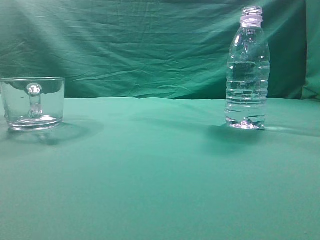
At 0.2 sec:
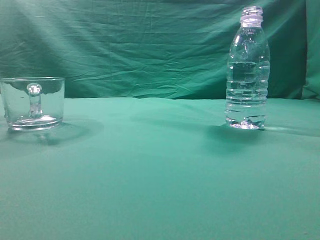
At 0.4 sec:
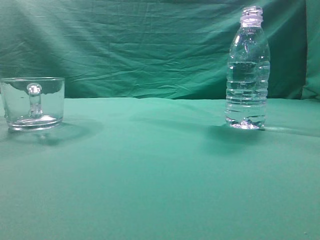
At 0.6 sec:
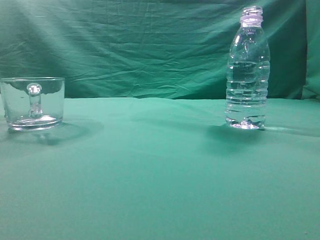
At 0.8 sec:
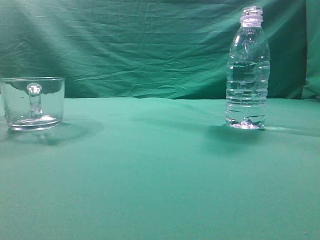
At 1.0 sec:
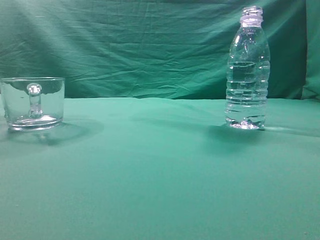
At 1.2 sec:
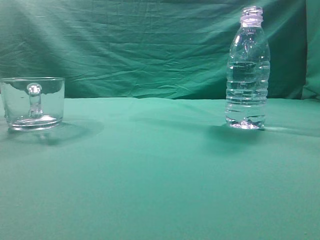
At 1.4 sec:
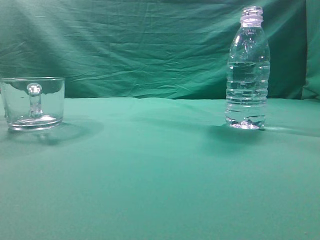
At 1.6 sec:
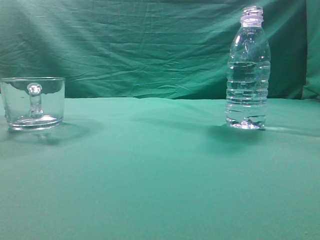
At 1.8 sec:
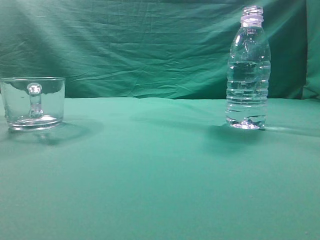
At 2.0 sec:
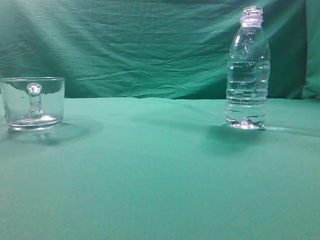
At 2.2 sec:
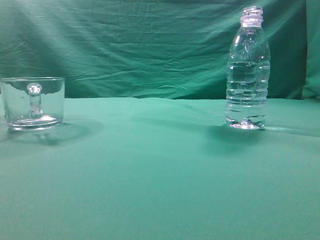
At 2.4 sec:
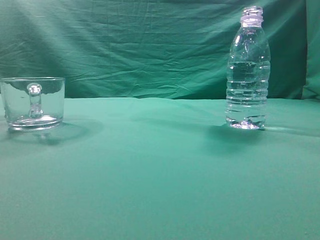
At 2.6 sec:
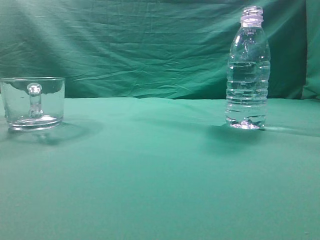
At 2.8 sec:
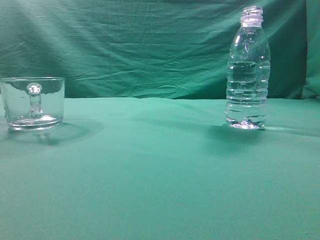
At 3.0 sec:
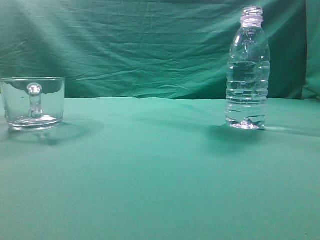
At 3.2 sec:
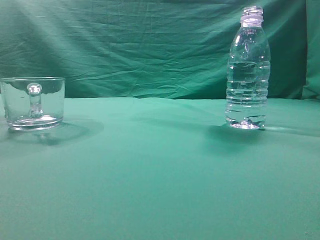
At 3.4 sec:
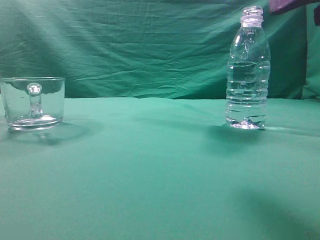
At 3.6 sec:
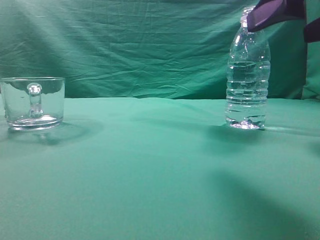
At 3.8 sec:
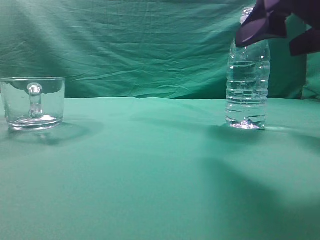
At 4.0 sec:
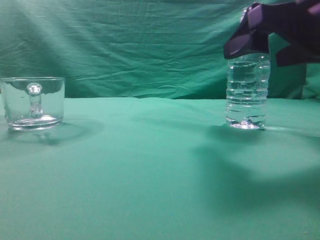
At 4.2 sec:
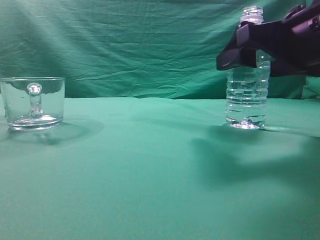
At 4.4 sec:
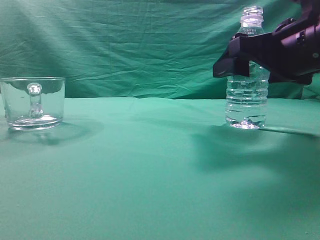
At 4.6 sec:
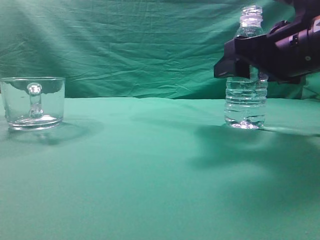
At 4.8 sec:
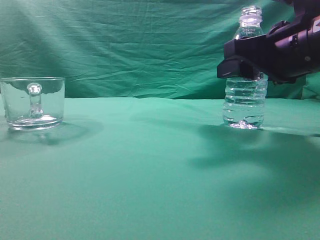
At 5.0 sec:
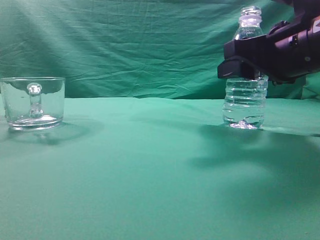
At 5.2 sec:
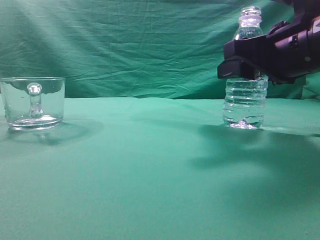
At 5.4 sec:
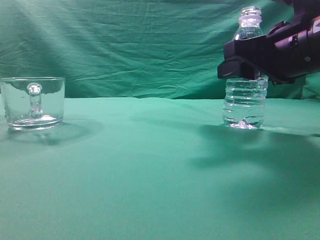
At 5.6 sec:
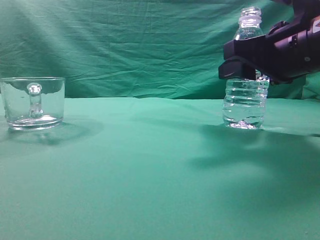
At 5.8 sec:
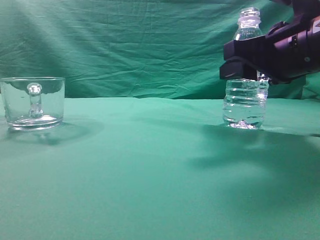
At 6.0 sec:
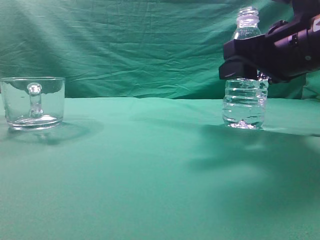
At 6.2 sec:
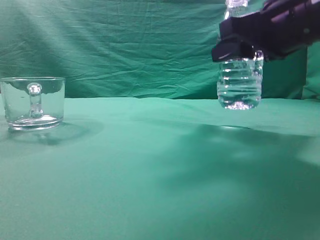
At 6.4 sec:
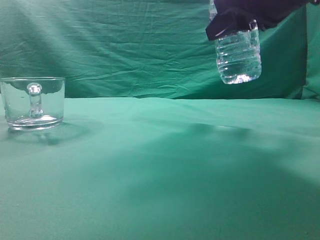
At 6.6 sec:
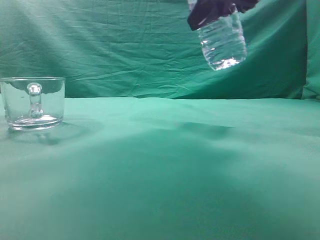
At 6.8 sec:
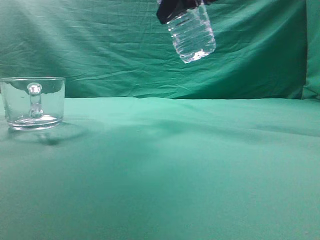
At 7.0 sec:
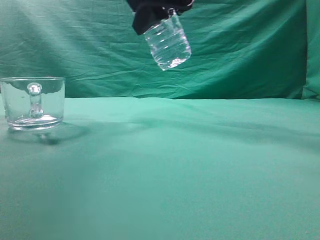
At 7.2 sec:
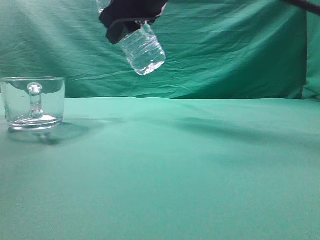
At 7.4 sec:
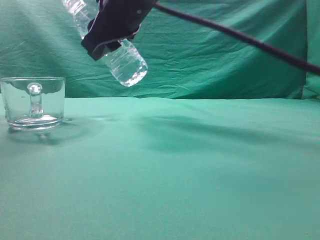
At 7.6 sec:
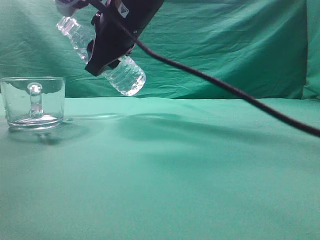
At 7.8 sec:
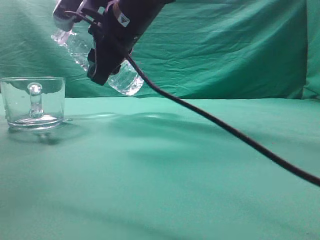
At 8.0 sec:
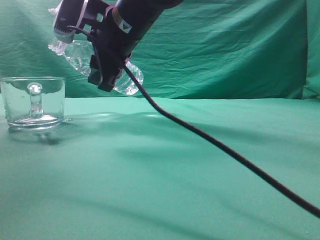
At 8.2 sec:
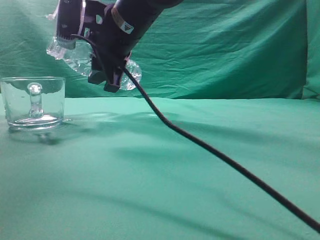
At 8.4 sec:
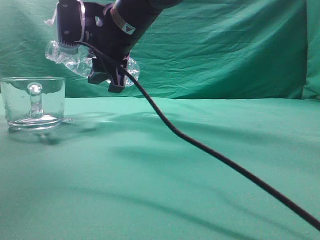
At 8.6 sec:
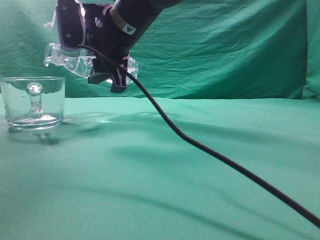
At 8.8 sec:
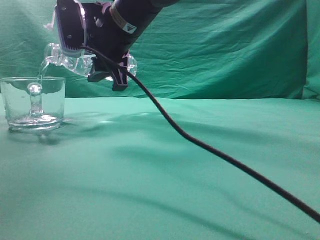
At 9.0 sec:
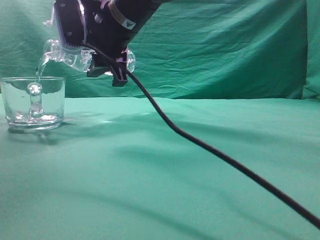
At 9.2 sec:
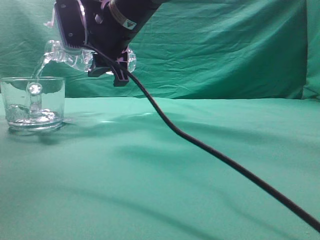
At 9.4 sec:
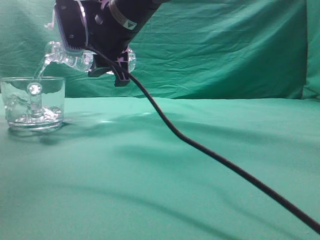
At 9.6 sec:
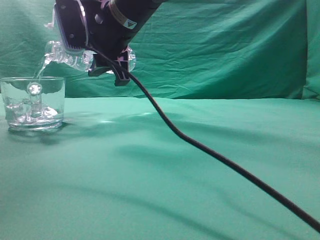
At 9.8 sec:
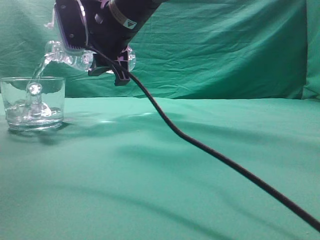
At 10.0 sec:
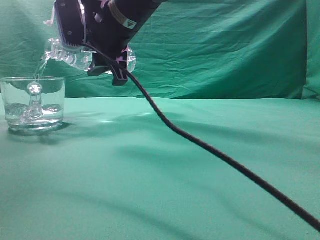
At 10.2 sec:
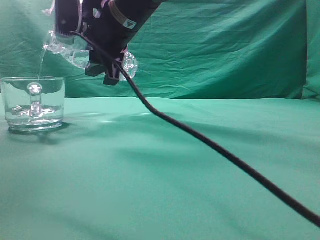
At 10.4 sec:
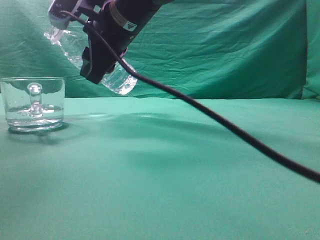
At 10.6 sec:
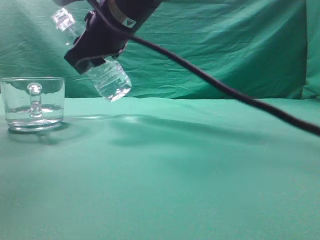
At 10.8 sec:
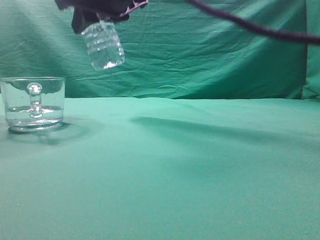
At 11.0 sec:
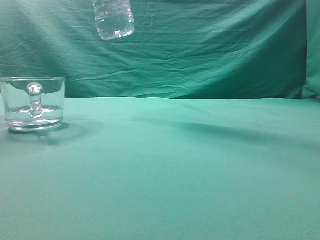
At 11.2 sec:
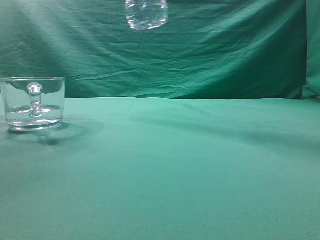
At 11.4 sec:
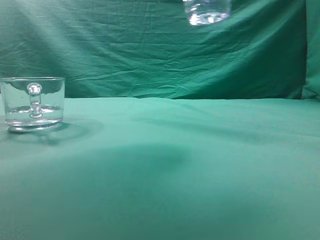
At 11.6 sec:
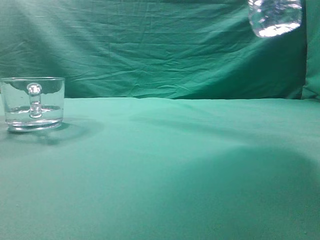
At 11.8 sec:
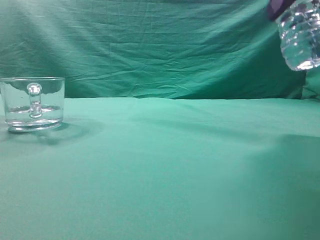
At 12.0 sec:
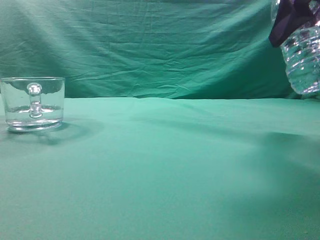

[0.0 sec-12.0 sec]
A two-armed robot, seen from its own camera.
Task of the whole recording: pick up the water bottle and pour the water in it into the glass.
Step, 0.0 sec to 6.2 sec: Grasp the mineral water bottle.
Step, 6.4 sec to 10.6 sec: Pour water into the teacup.
3.0 sec to 4.4 sec: The right gripper shifts approximately 20 cm forward and downward, and opens.
4.4 sec to 6.0 sec: The right gripper closes its fingers.
6.0 sec to 7.6 sec: The right gripper travels to the left and forward by about 25 cm.
10.4 sec to 12.0 sec: The right gripper heads to the right and backward, covering roughly 30 cm.

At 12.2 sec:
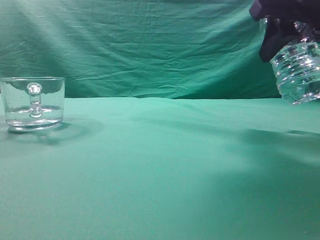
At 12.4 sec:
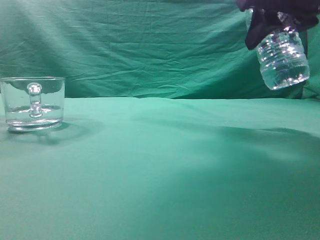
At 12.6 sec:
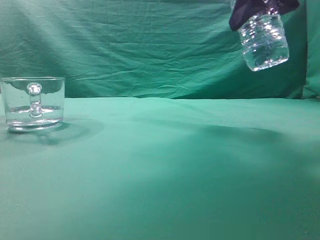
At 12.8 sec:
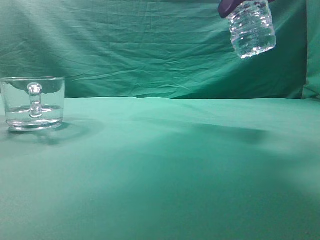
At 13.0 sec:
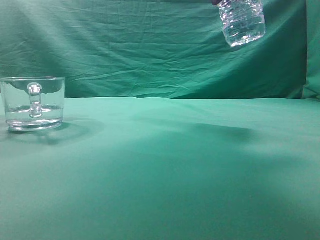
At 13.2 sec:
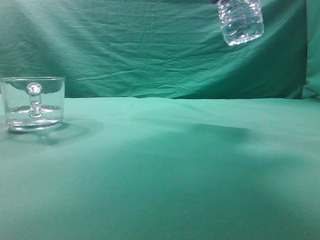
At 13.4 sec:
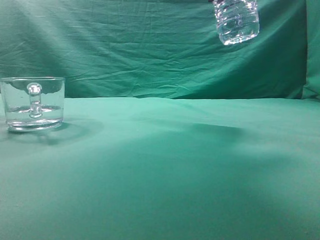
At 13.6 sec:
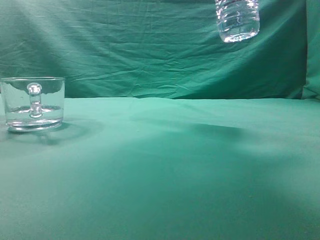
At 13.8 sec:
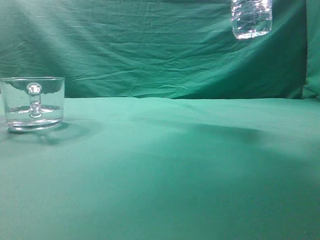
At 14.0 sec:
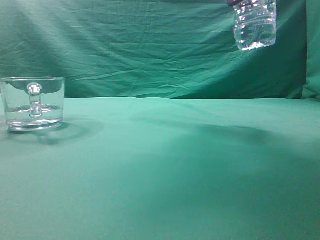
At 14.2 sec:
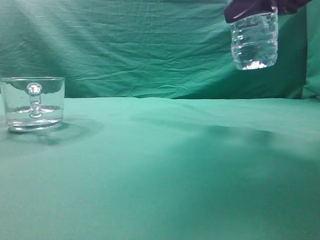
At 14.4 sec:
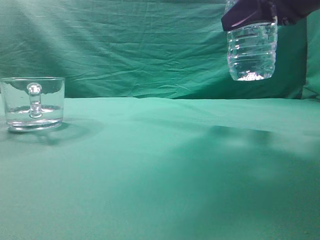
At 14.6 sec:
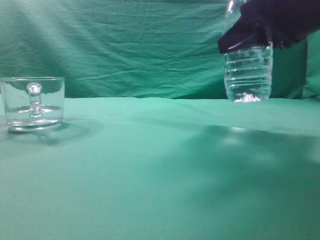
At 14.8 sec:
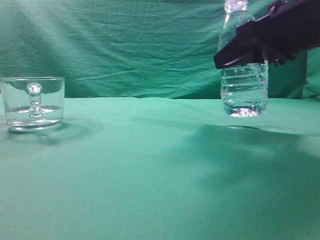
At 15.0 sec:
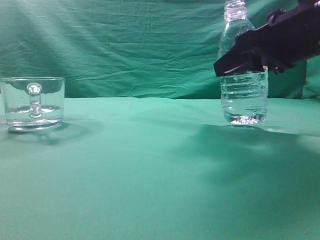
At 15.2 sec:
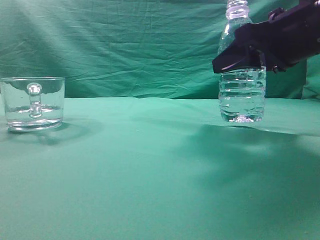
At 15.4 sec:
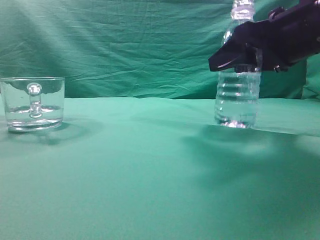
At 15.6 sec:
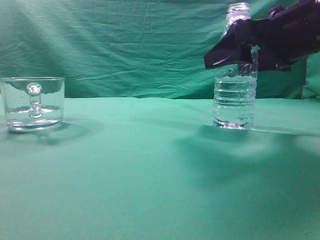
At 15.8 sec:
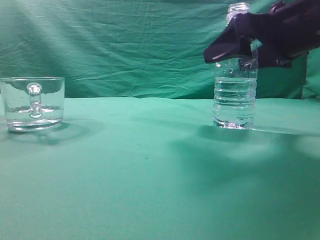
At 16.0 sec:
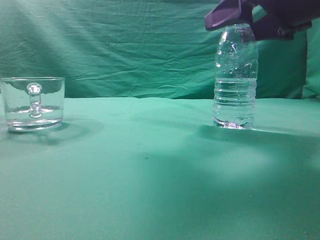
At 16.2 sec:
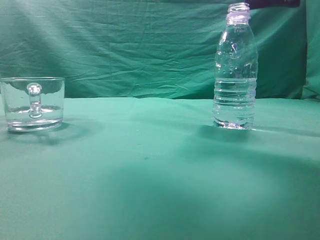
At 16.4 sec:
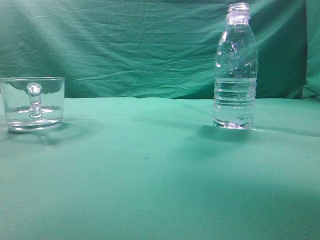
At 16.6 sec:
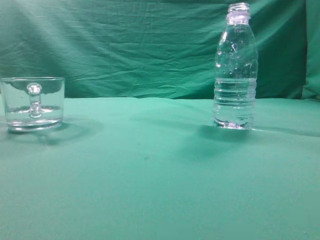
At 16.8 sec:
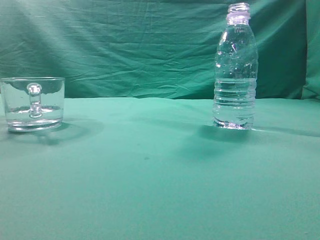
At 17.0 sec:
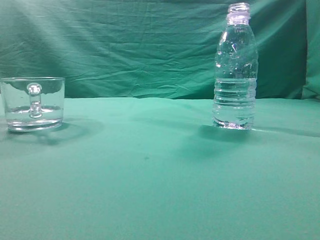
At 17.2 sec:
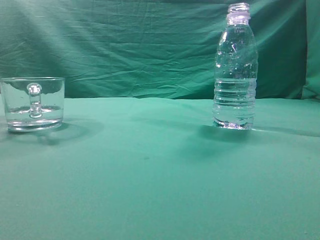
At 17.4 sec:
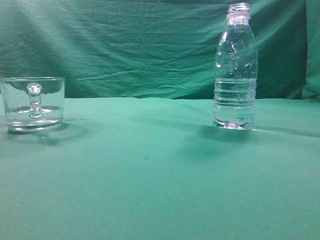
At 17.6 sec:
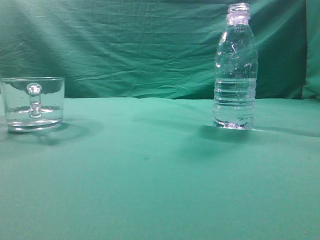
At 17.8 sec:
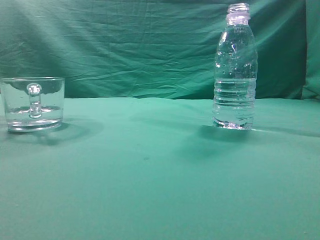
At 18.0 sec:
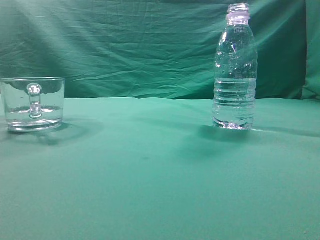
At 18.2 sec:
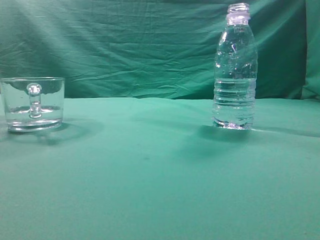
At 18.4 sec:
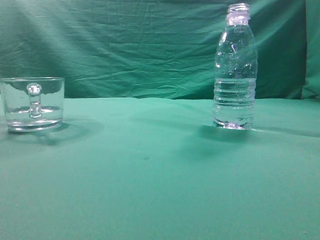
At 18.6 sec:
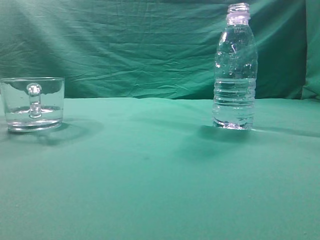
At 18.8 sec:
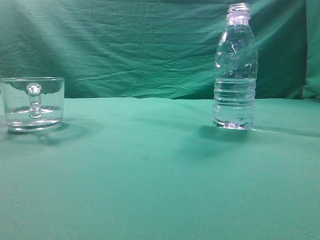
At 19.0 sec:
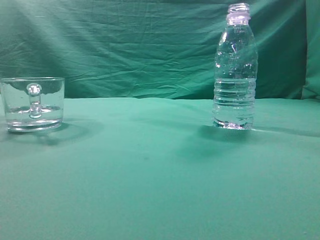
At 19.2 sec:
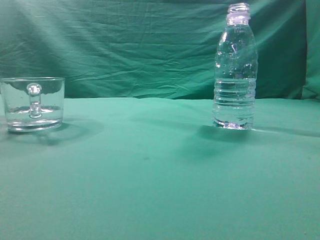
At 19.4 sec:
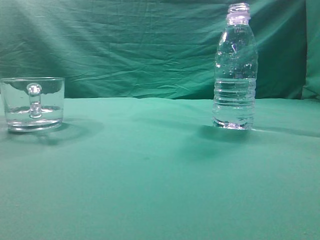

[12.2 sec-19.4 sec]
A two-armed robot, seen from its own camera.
Task of the whole recording: pick up the water bottle and pour the water in it into the glass.
12.2 sec to 13.6 sec: The right gripper travels upward by approximately 10 cm.
13.6 sec to 15.0 sec: The right gripper travels downward by some 15 cm.
15.0 sec to 16.6 sec: The right gripper goes some 15 cm upward and backward, and opens, then closes once more.
